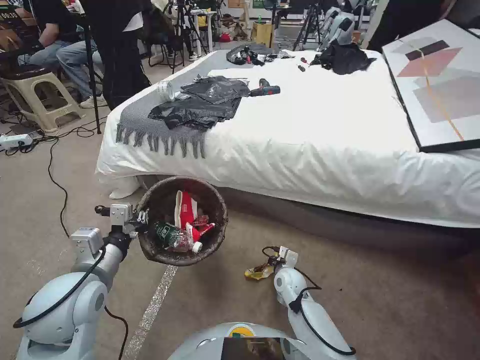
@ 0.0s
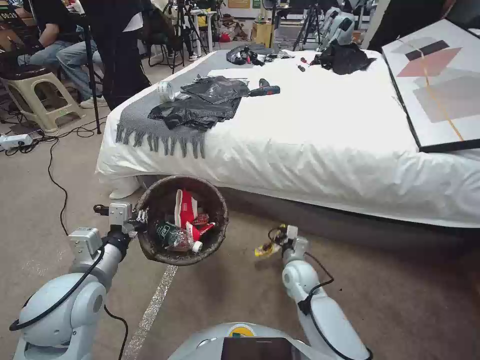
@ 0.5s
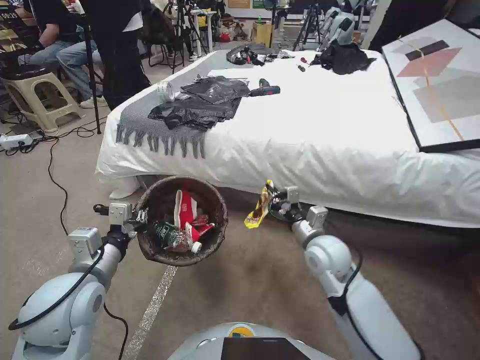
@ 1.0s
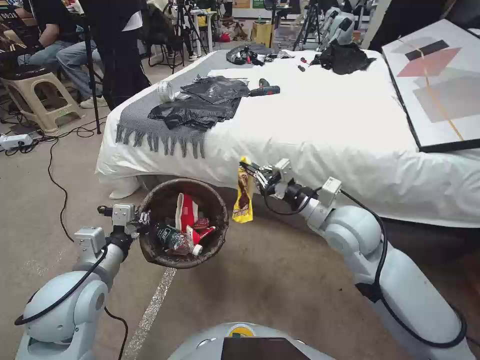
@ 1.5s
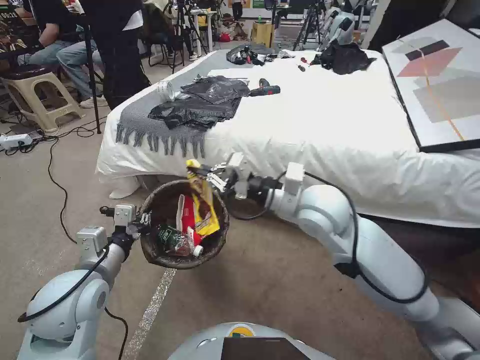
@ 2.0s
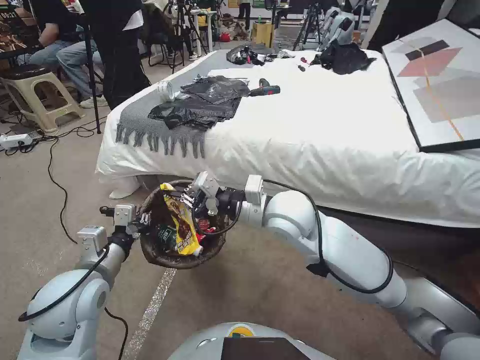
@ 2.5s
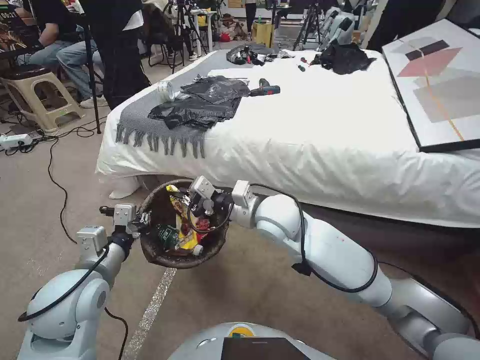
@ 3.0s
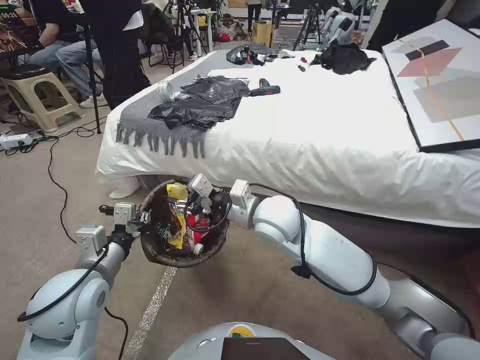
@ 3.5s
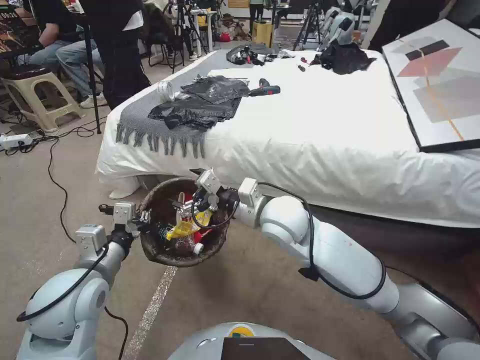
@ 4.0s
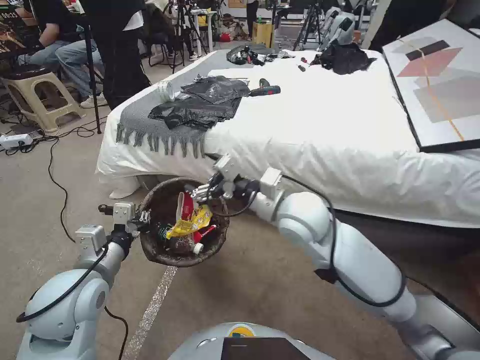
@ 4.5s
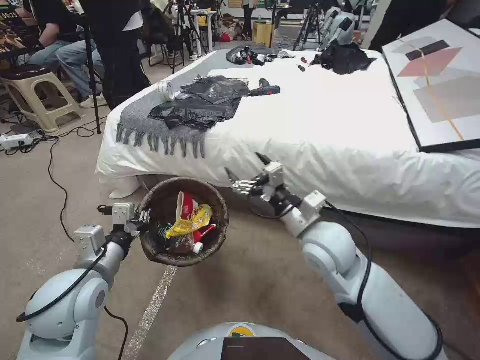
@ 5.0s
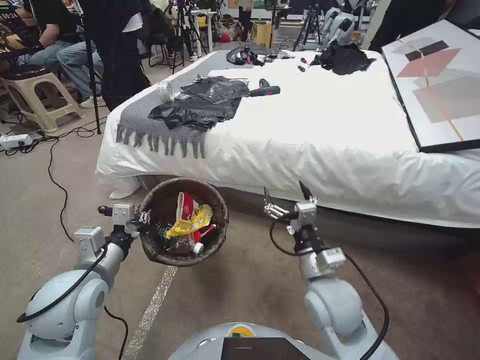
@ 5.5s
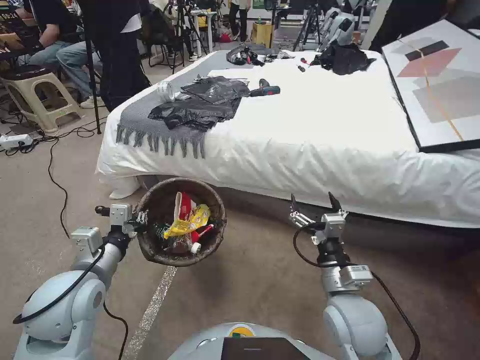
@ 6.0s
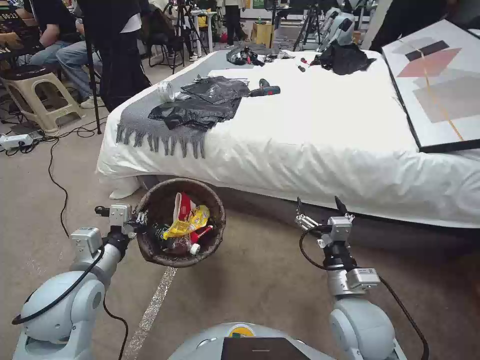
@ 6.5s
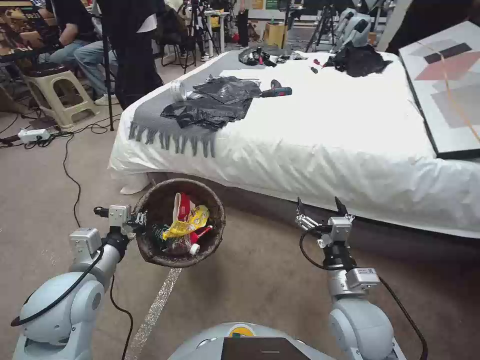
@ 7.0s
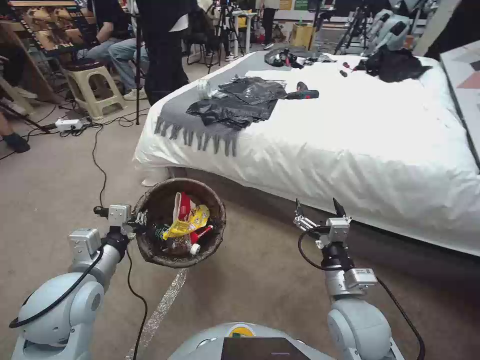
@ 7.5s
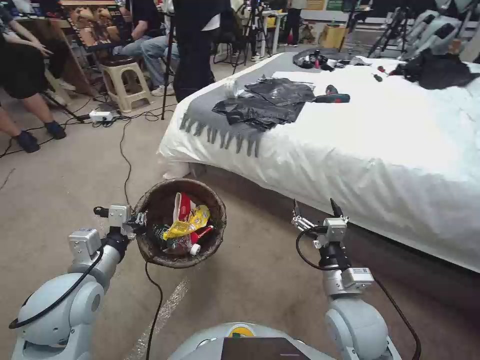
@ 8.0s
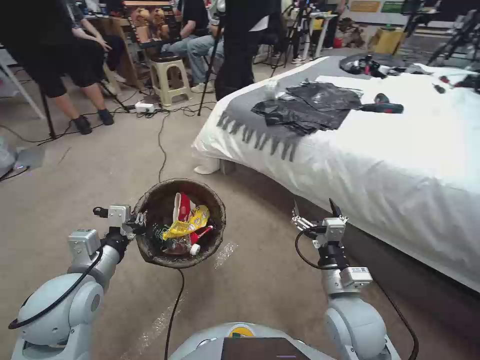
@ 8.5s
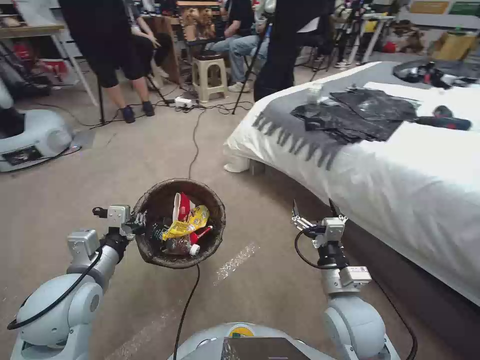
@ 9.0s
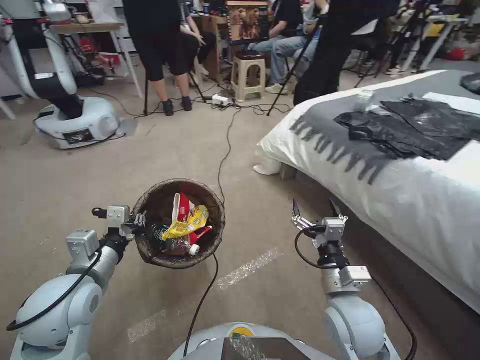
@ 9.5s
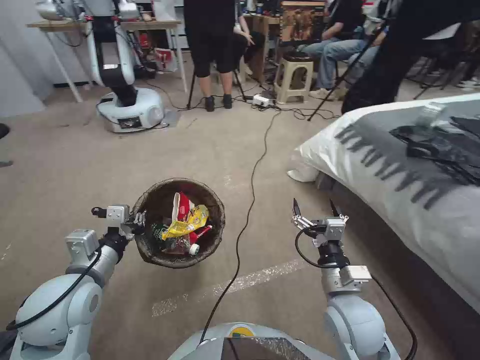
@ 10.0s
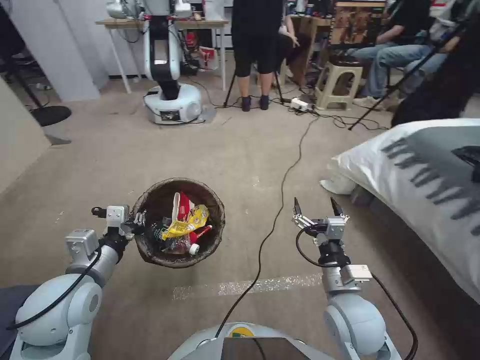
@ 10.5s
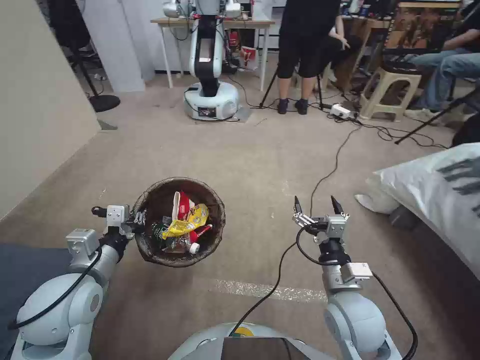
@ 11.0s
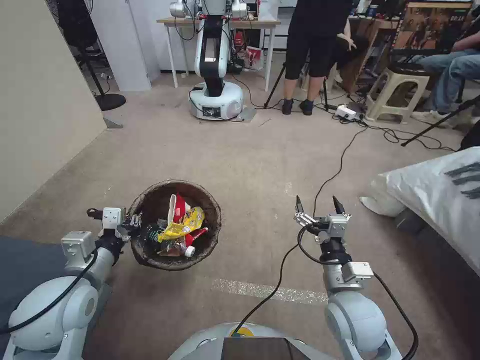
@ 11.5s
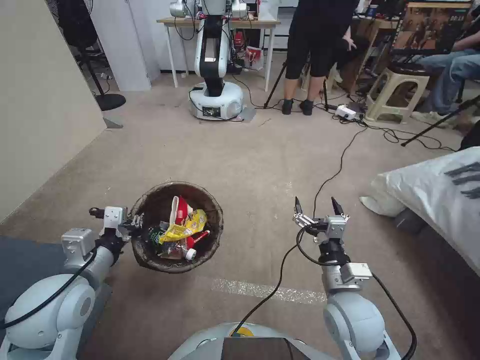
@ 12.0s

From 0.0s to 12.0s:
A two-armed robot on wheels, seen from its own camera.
Task of the whole recording: Pick up the trash bin, then pick up the garbage from the floor and place it into the trash bin.
From 0.0s to 2.0s: The right gripper heads upward, covering some 40 cm.
From 2.0s to 4.0s: The right gripper heads to the left, covering roughly 10 cm, and opens its fingers.
From 4.0s to 6.0s: The right gripper is displaced backward, to the right and downward by about 25 cm.

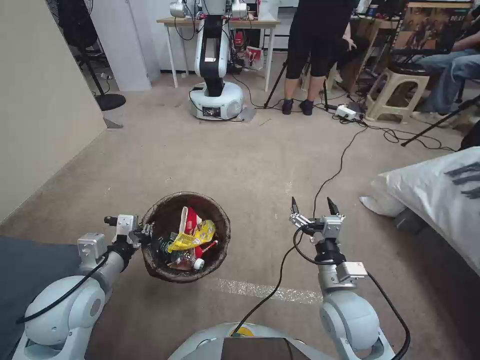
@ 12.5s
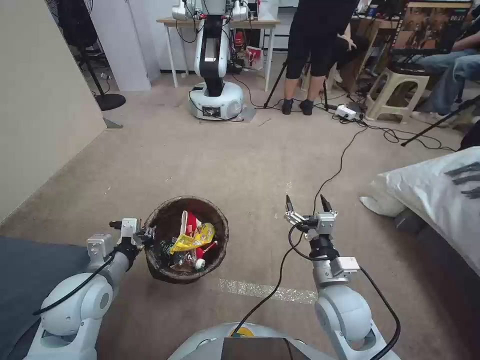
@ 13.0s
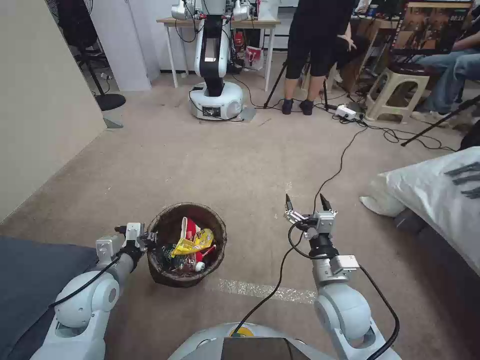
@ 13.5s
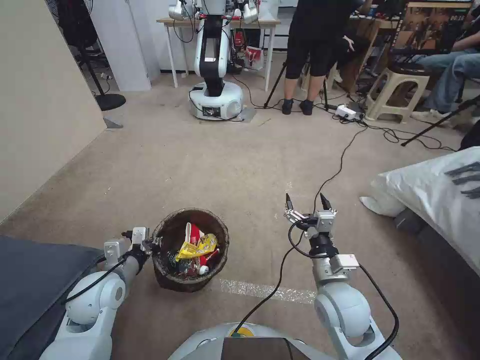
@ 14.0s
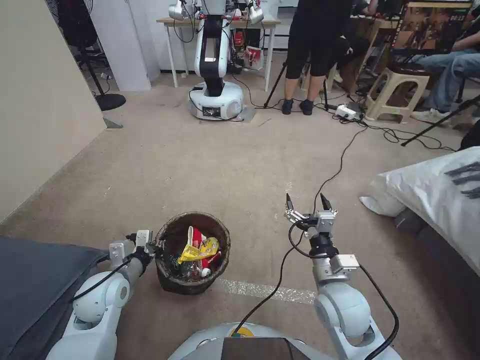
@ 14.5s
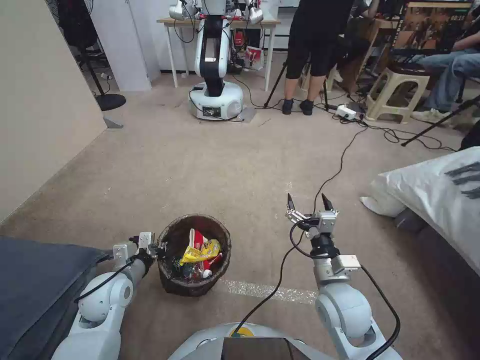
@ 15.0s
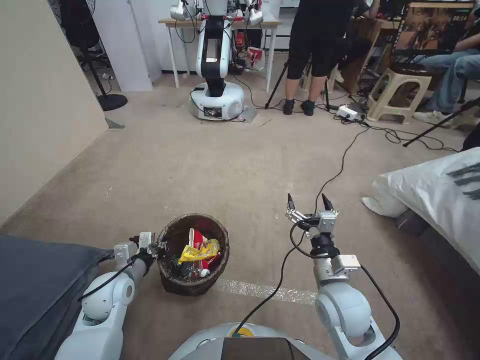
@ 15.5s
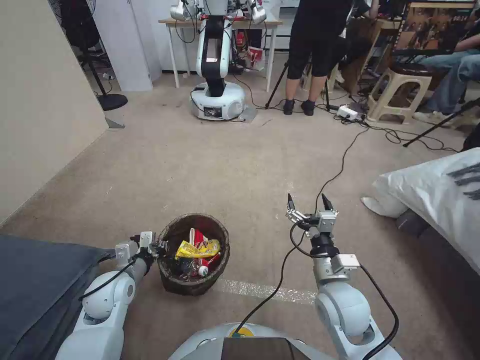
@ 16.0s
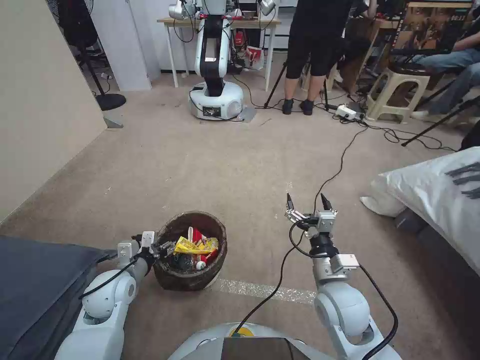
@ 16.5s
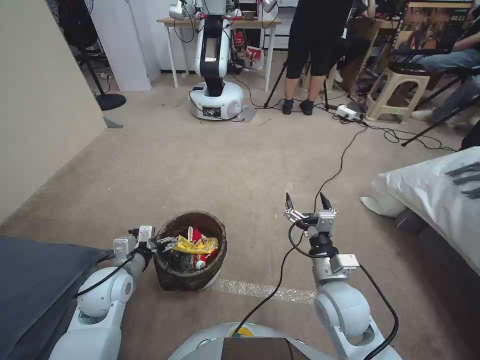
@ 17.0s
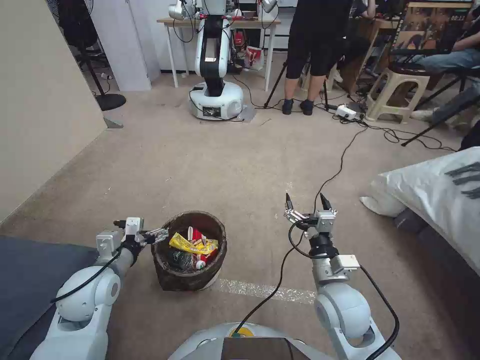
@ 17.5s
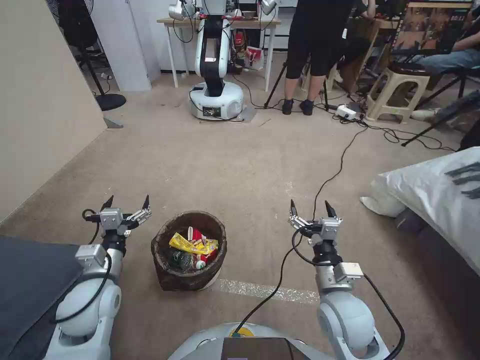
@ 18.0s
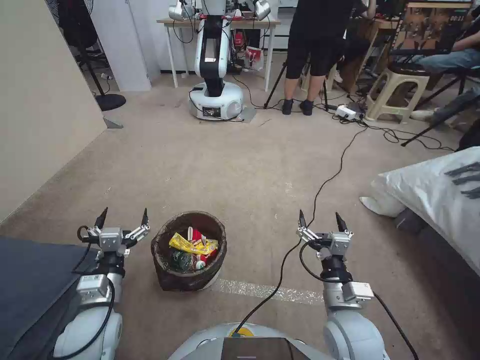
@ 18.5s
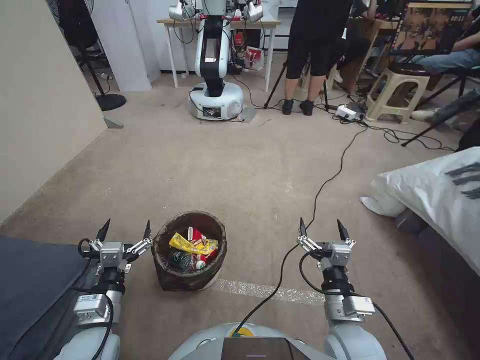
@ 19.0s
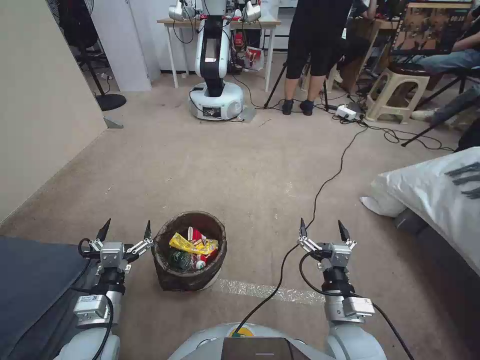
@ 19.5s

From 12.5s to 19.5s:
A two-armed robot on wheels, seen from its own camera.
Task of the whole recording: Pick up the trash bin, then pick up the garbage from the floor and place it into the trash bin.
From 12.5s to 14.5s: The left gripper goes about 10 cm downward.
From 14.5s to 16.0s: There are only small adjustments of the grippers.
From 16.0s to 17.5s: The left gripper heads upward, covering about 5 cm, and opens up.
From 17.5s to 19.5s: Both grippers move backward, about 10 cm.

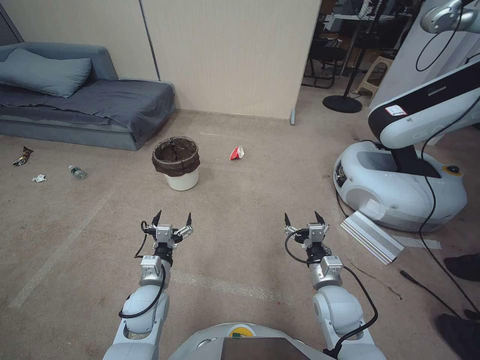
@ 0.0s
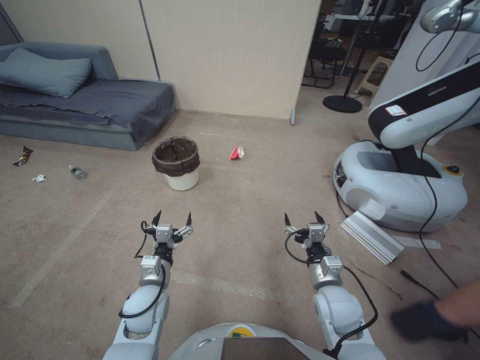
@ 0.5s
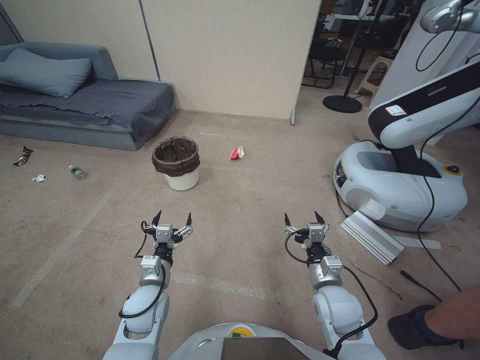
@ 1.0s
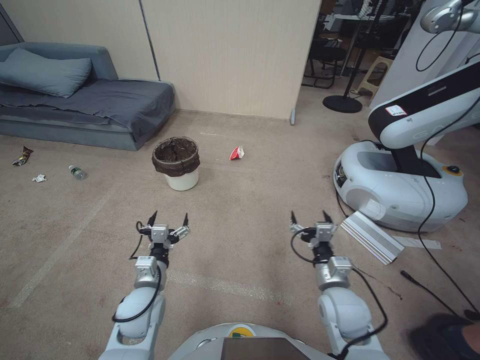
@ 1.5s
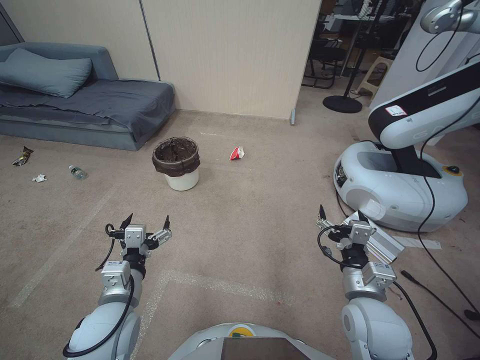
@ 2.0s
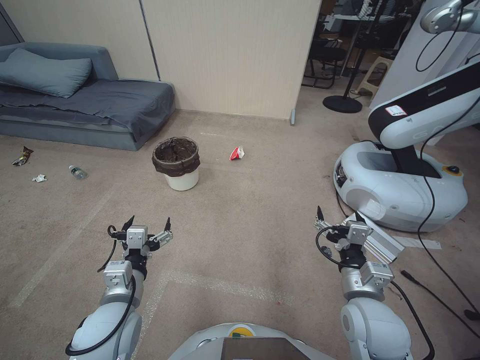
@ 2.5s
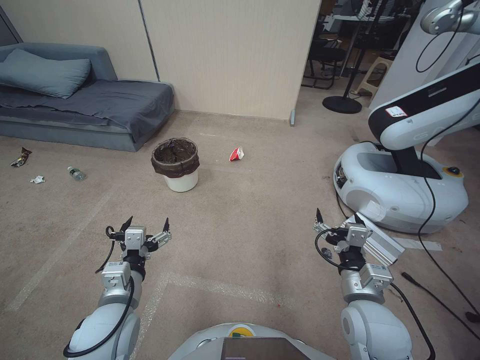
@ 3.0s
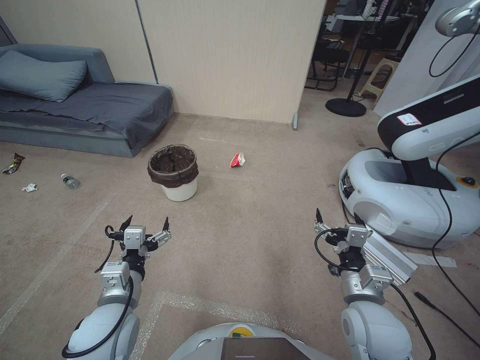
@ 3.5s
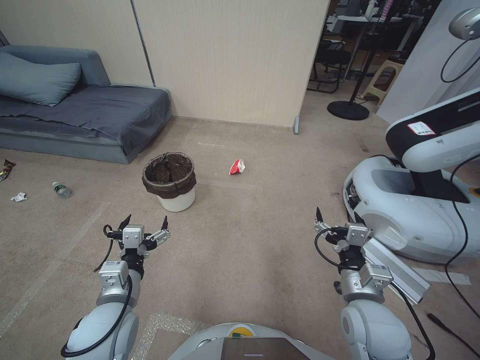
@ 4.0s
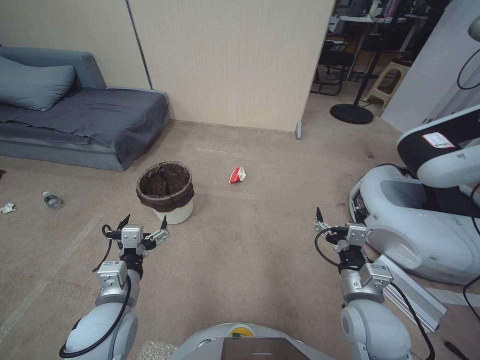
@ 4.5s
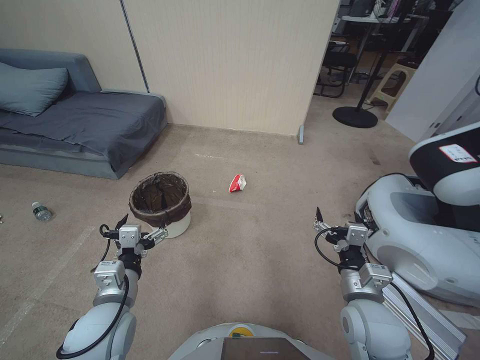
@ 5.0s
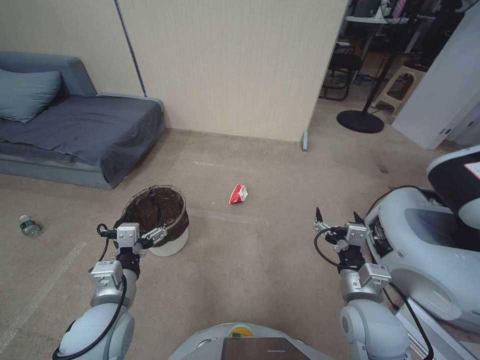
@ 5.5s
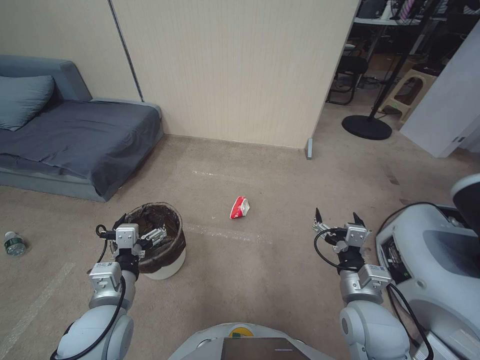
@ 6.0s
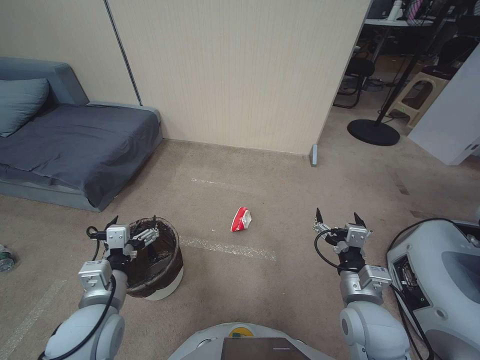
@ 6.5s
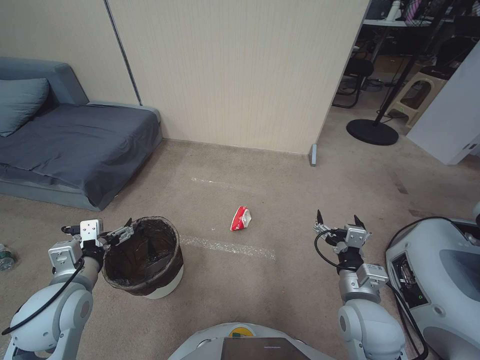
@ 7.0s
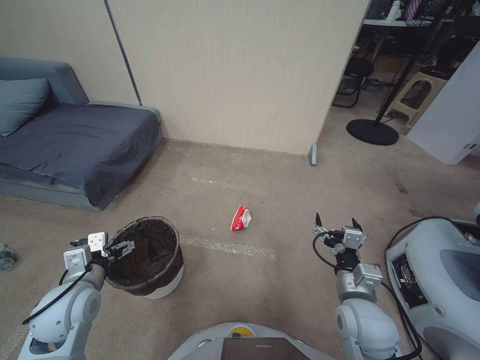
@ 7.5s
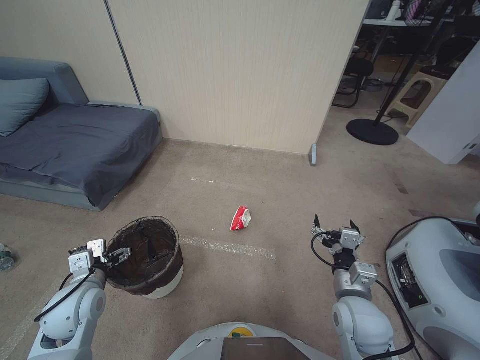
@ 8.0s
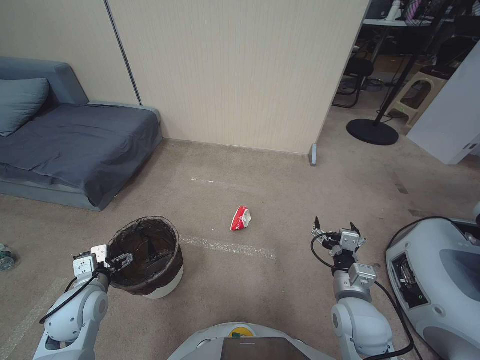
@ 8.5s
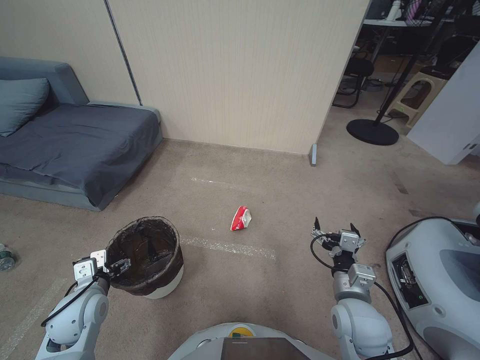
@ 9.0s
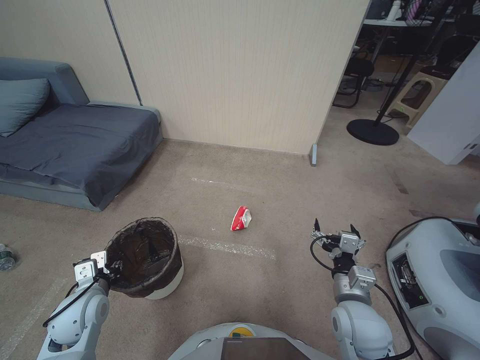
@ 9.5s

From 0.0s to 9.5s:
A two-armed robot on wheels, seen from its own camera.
Task of the whole recording: Pick up the trash bin, then pick up the garbage from the floor and place it into the trash bin.
From 5.5s to 7.5s: The left gripper heads to the left, covering some 10 cm.
From 7.5s to 9.5s: The left gripper goes some 5 cm downward, and closes up.
